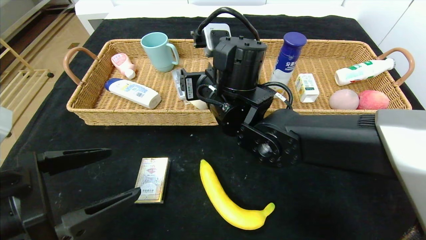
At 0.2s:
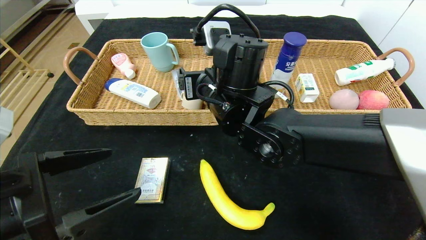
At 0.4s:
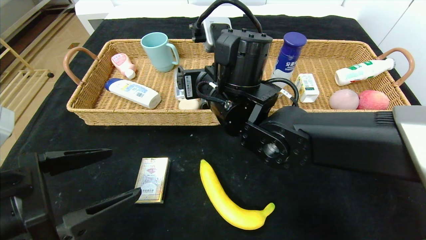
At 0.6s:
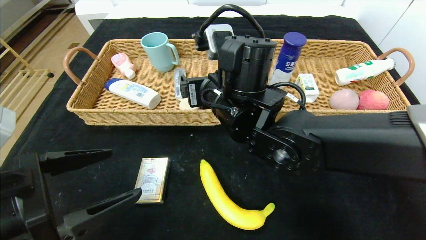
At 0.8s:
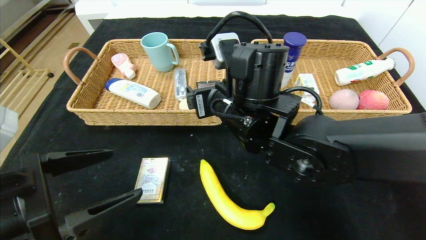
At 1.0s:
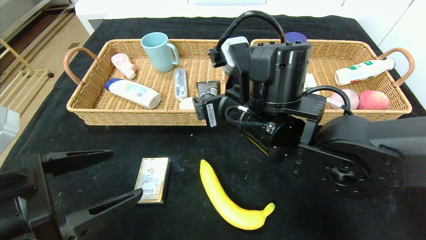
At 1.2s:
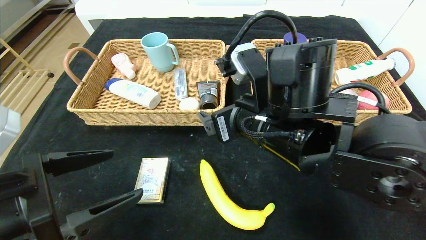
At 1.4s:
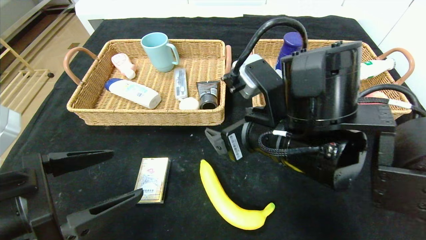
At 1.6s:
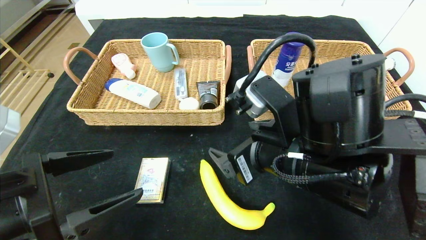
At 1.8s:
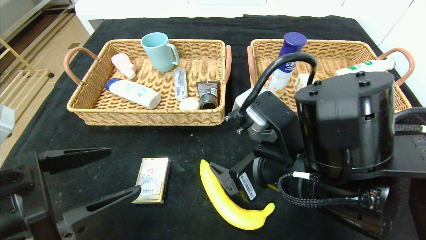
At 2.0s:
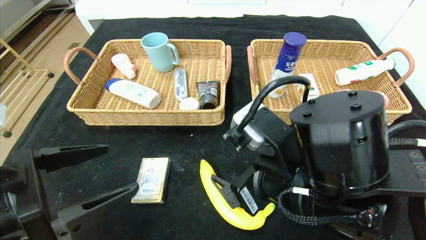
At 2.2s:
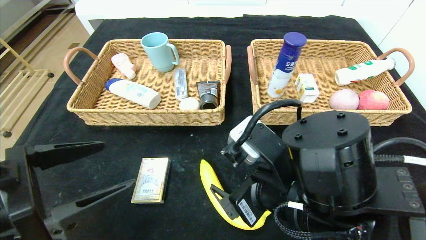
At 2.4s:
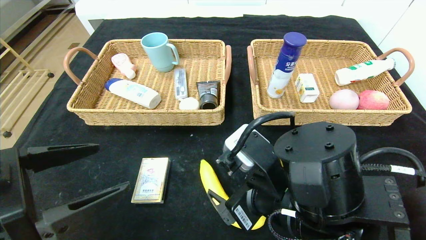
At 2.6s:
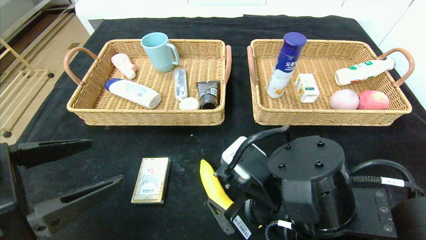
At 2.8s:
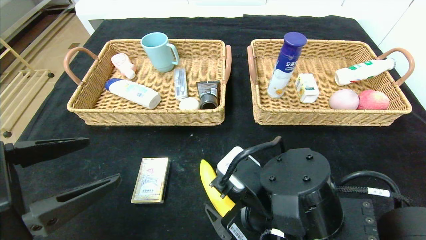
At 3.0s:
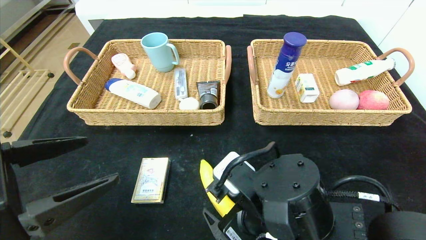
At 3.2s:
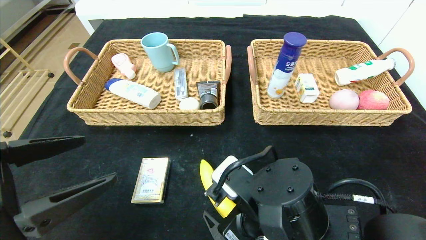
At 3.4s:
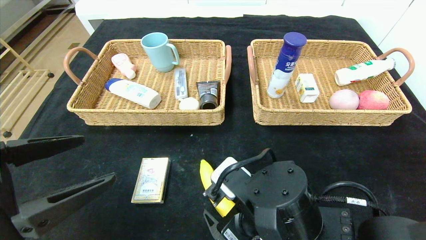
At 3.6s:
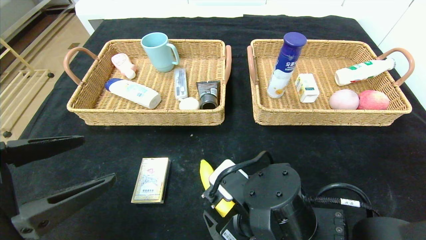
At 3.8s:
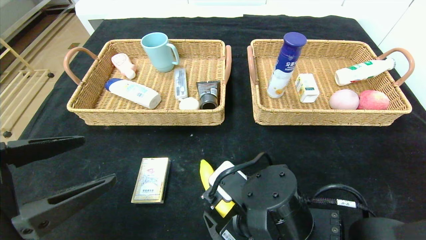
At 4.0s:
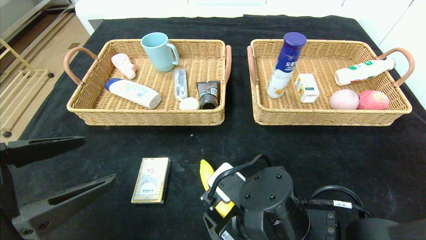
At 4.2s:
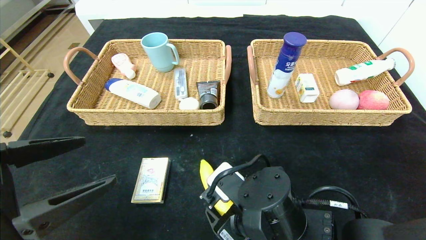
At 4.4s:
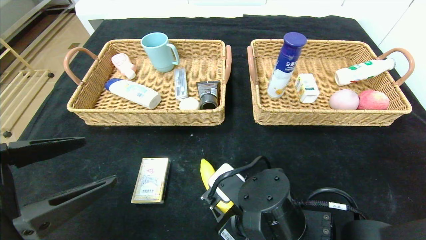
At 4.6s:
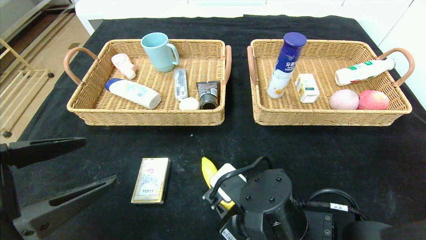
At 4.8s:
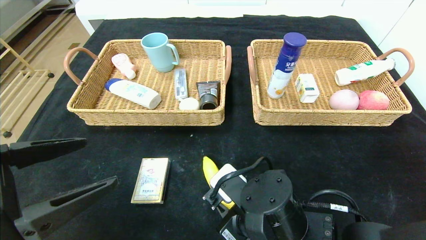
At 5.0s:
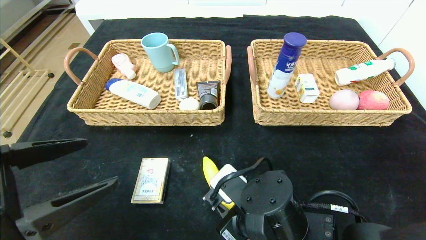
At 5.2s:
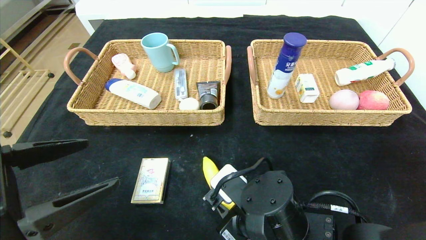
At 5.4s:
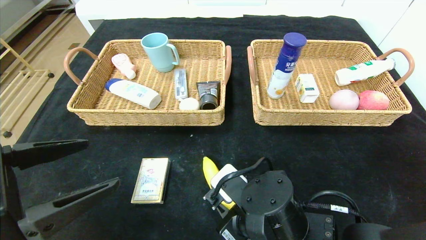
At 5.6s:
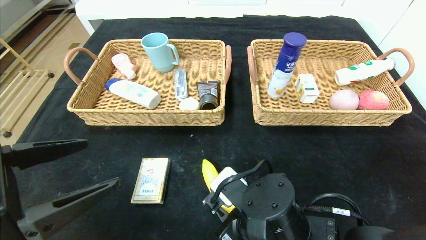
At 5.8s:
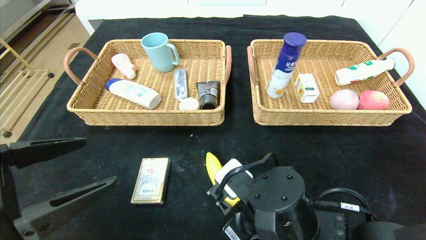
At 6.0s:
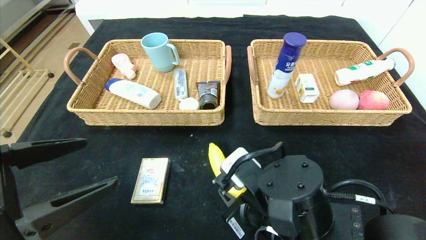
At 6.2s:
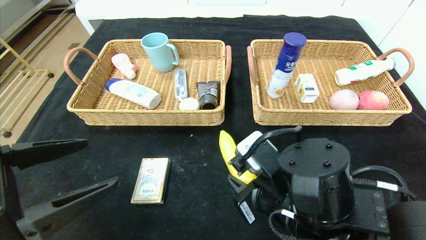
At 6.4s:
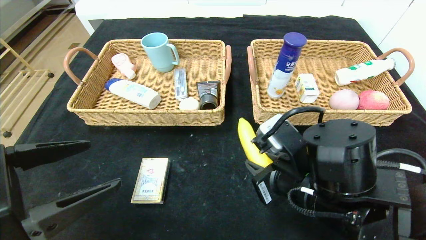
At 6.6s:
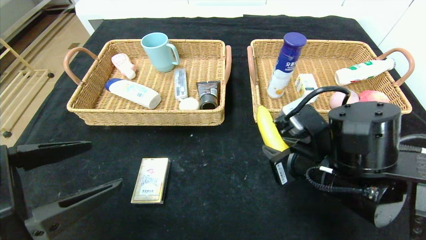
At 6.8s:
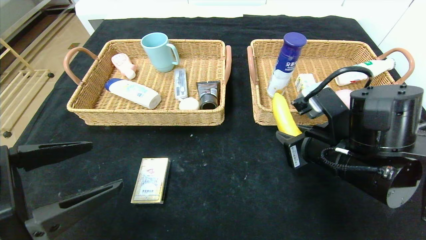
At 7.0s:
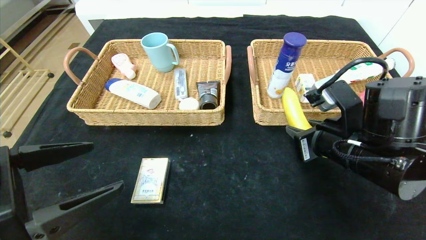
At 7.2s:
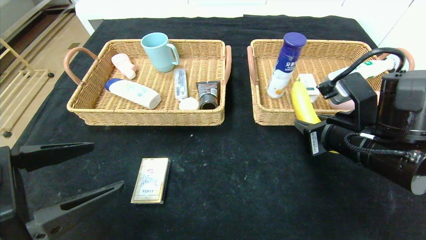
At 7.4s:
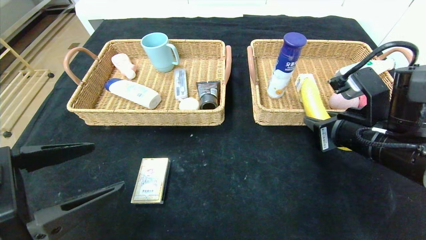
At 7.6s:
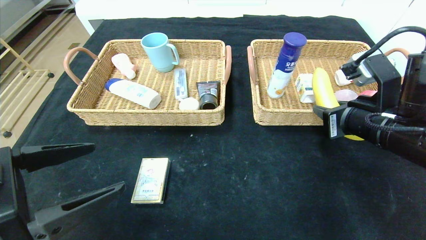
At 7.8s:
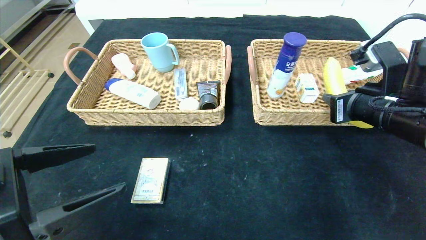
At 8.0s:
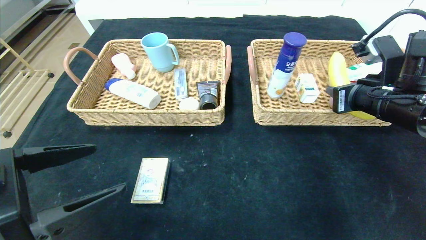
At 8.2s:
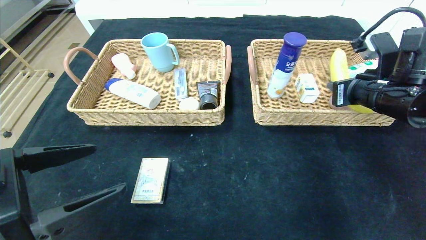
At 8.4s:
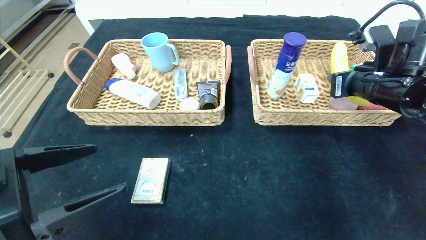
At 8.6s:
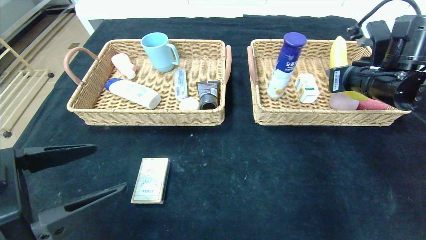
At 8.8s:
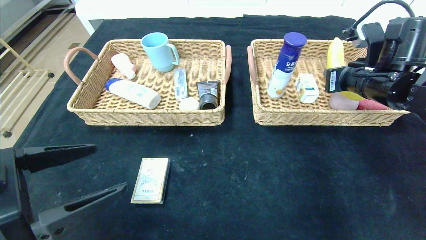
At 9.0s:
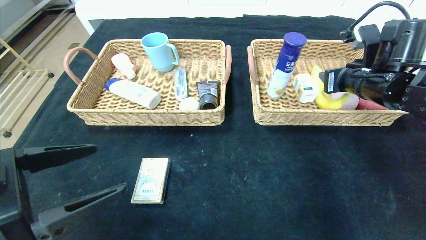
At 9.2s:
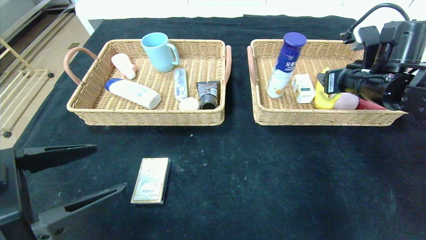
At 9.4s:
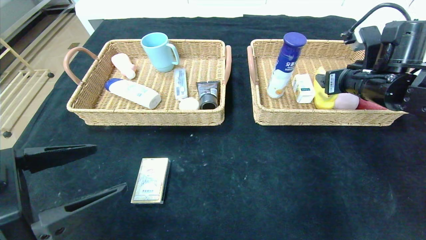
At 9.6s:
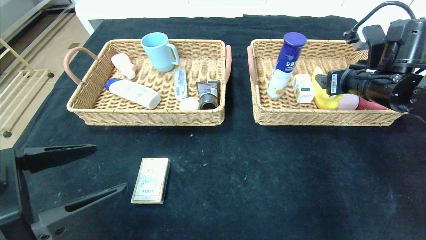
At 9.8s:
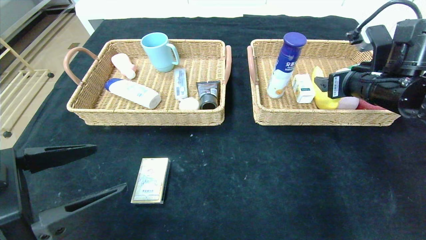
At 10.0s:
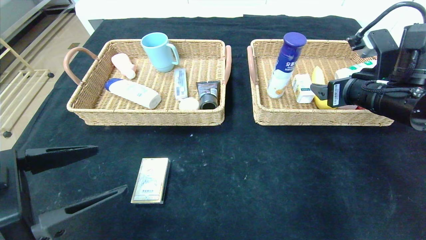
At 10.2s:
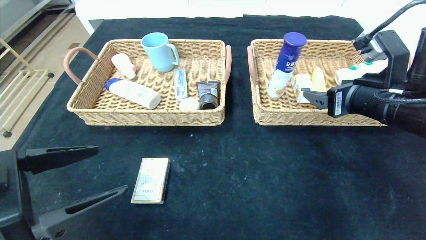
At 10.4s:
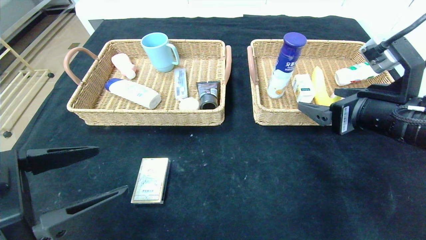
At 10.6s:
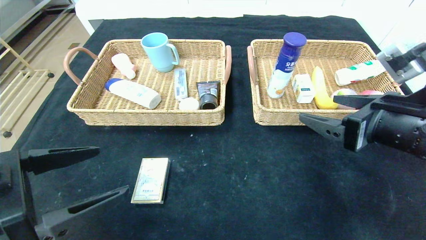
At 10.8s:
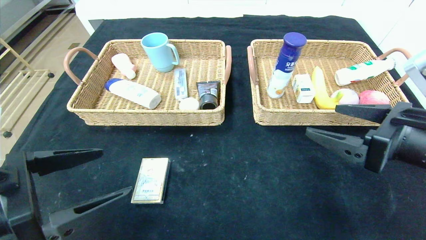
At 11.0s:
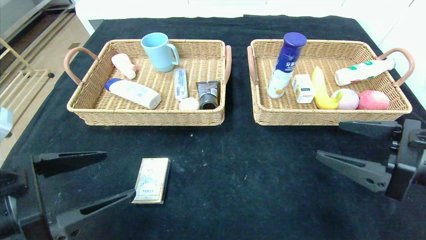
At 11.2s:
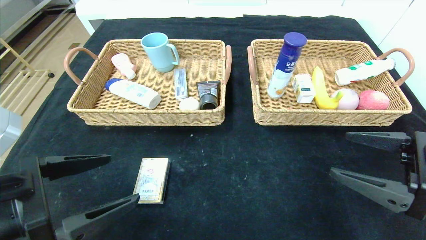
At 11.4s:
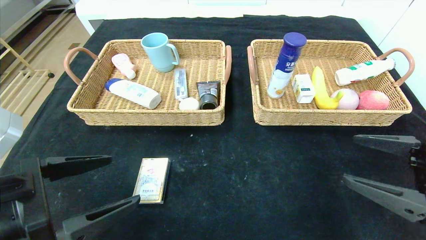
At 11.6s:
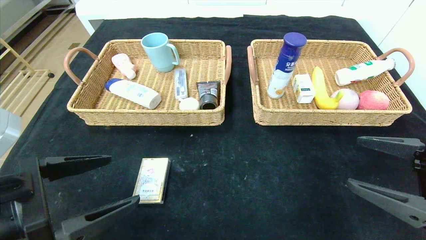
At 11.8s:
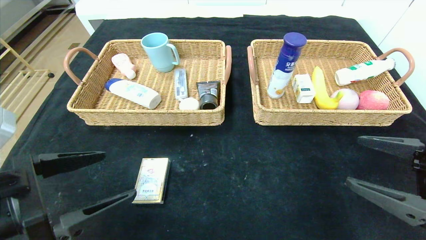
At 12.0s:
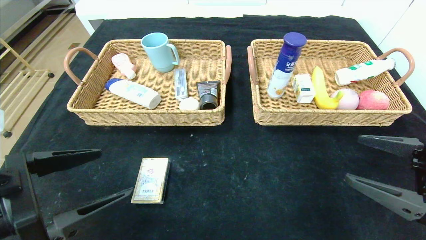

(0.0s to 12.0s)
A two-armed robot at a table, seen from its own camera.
Step, 1.6s - 11.0s: Pick up the banana and put it in the right basket.
0.0s - 1.6s: The right gripper shifts some 15 cm backward and to the right.
1.6s - 3.0s: The right gripper heads downward, covering approximately 10 cm.
3.0s - 4.4s: The right gripper closes.
4.4s - 6.0s: The grippers make only small movements.
6.0s - 7.6s: The right gripper heads to the right, upward and forward, covering roughly 20 cm.
7.6s - 9.0s: The right gripper moves forward, approximately 10 cm.
9.0s - 10.4s: The right gripper is displaced backward by approximately 10 cm, and opens up.
10.4s - 12.0s: The right gripper is displaced backward, to the right and downward by roughly 10 cm.

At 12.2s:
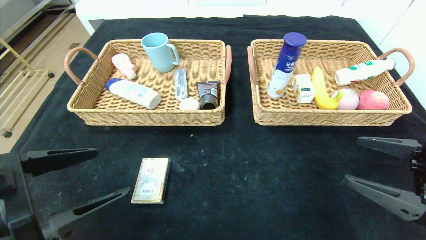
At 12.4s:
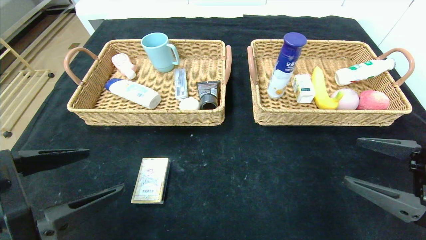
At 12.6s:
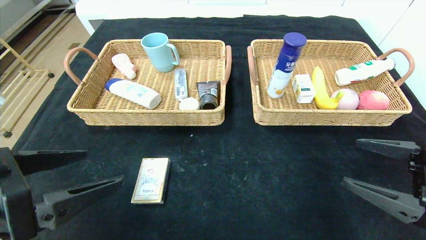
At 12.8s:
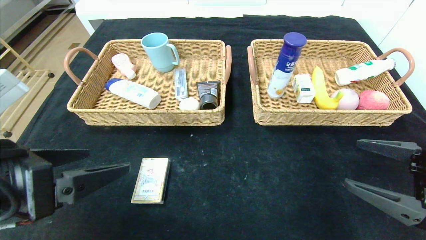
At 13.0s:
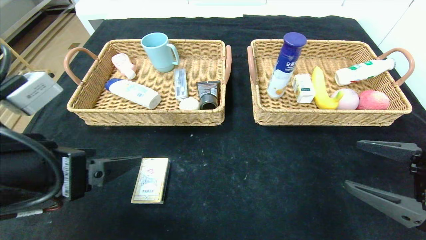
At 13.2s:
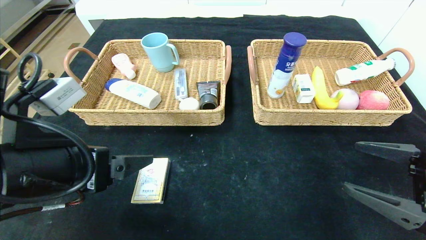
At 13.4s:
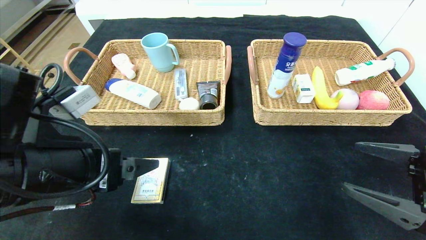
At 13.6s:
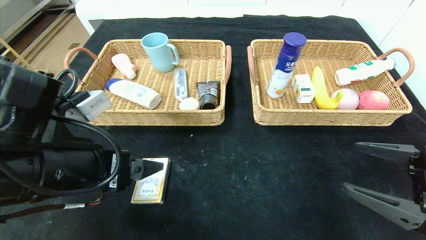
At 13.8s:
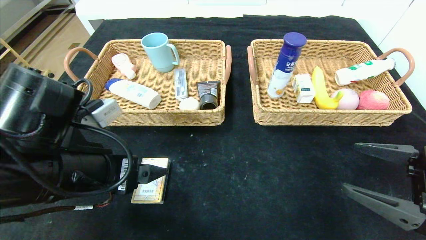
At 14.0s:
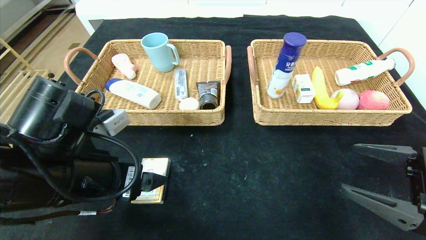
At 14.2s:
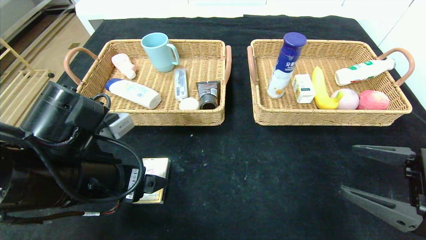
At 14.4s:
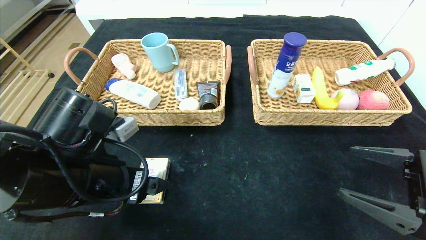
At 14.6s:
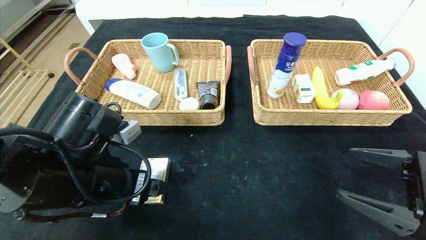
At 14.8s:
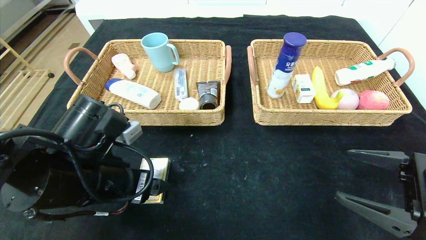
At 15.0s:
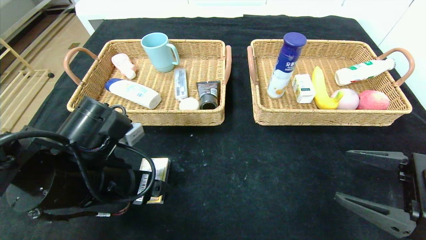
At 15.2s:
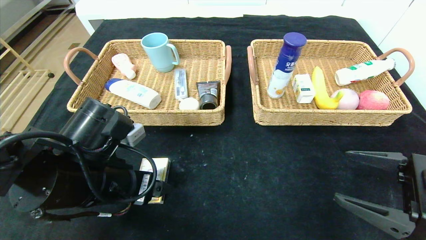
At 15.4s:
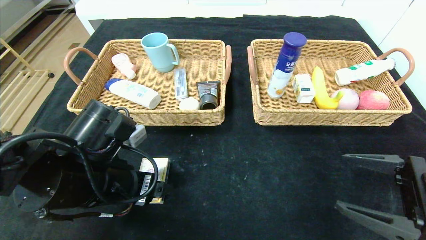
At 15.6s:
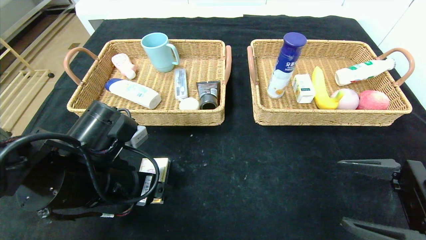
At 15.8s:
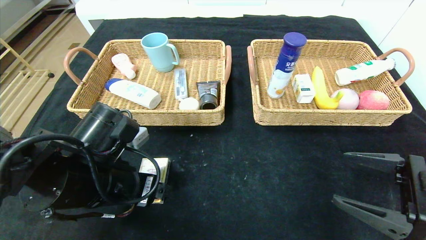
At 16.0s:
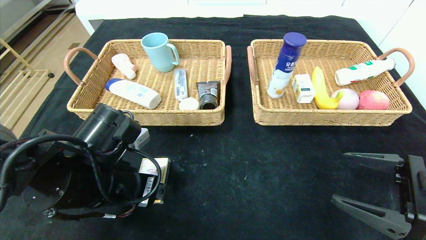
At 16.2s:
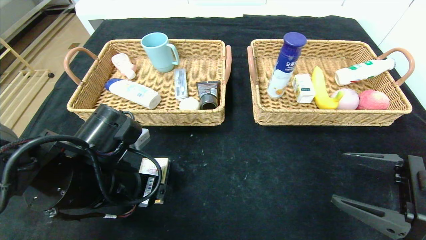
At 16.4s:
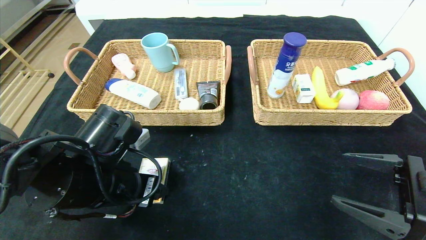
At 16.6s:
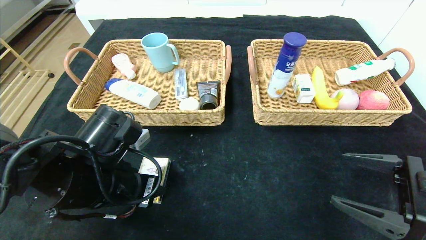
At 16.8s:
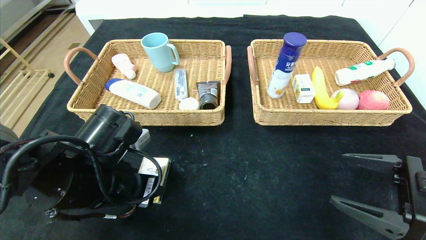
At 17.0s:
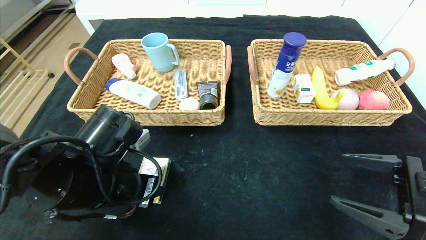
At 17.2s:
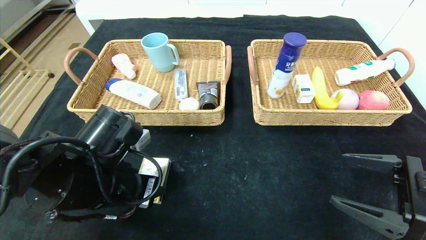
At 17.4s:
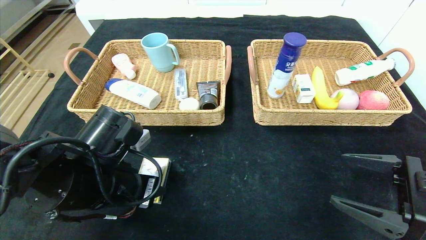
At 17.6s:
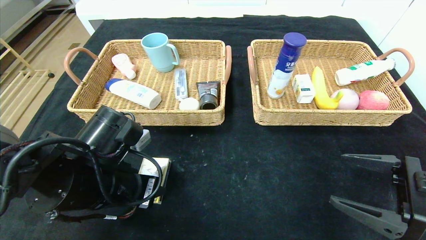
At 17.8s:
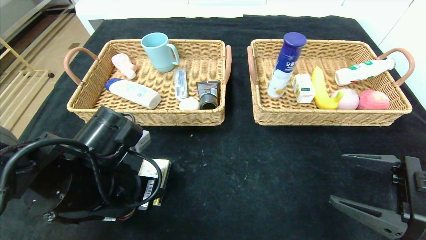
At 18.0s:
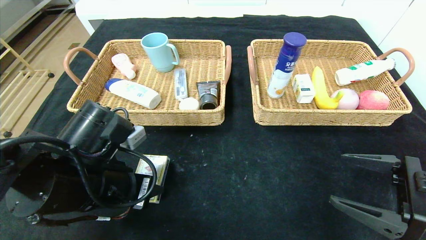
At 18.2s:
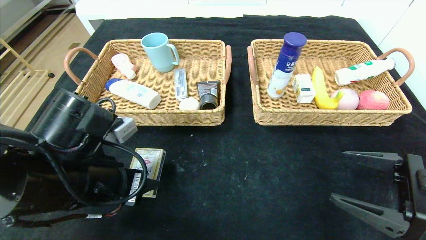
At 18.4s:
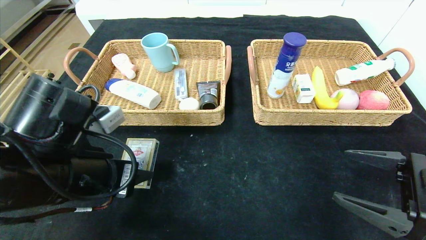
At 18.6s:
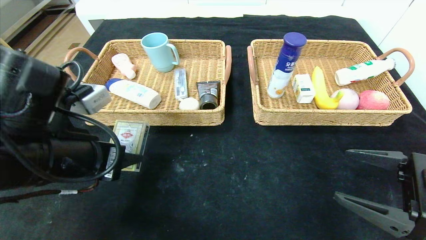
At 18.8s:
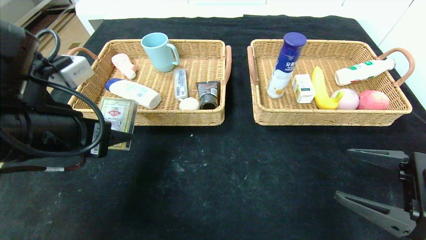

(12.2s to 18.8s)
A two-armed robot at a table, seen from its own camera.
12.2s - 13.8s: The left gripper is displaced forward and to the right by roughly 10 cm.
13.8s - 15.4s: The grippers make only small movements.
15.4s - 17.2s: The left gripper closes.
17.2s - 18.8s: The left gripper heads upward, covering roughly 10 cm.
